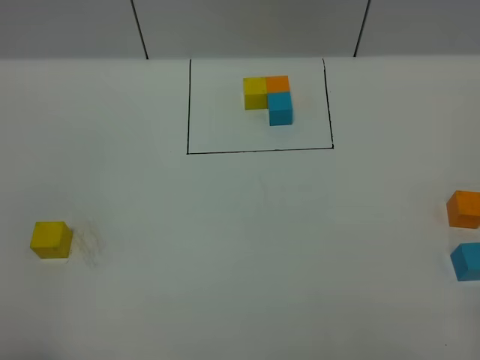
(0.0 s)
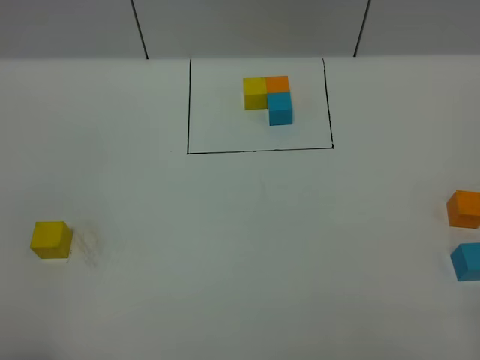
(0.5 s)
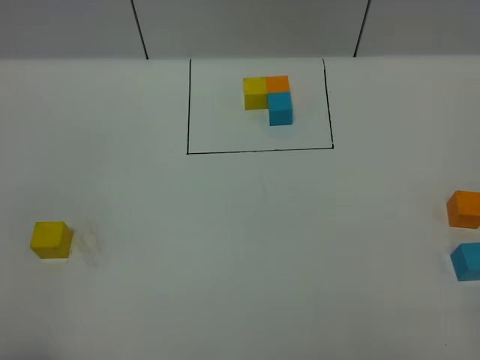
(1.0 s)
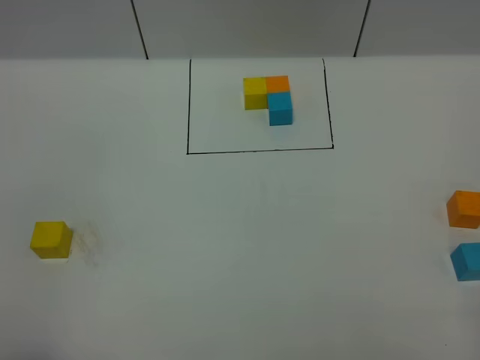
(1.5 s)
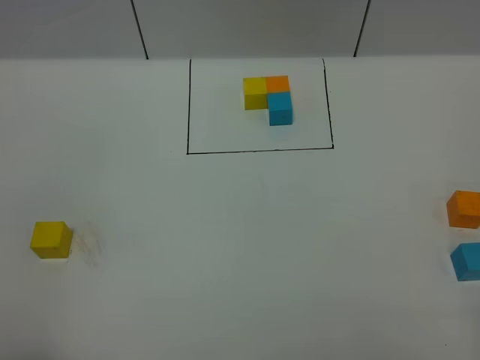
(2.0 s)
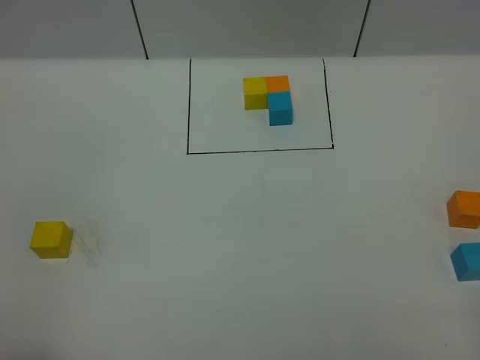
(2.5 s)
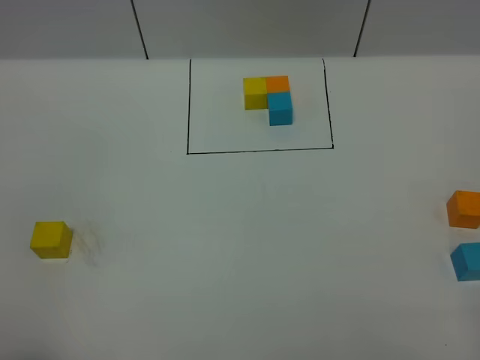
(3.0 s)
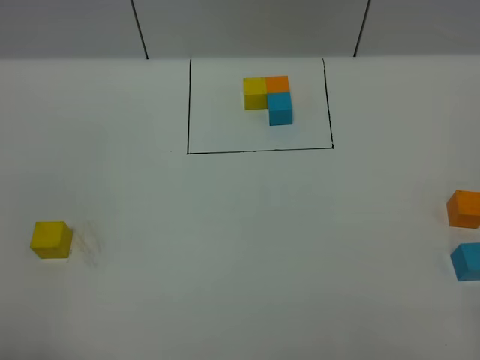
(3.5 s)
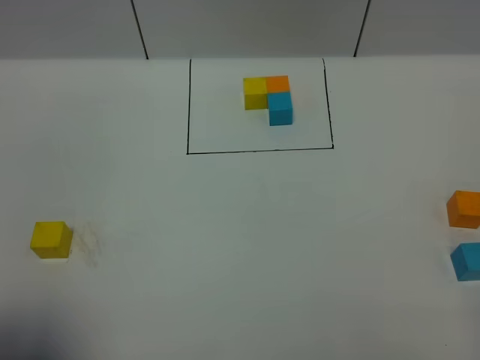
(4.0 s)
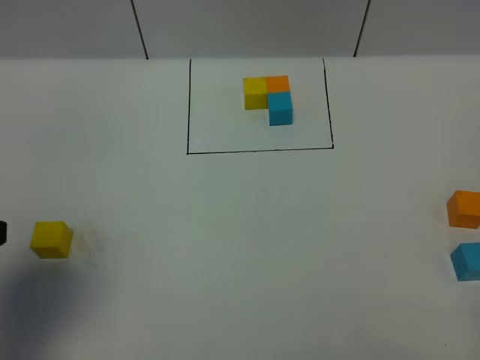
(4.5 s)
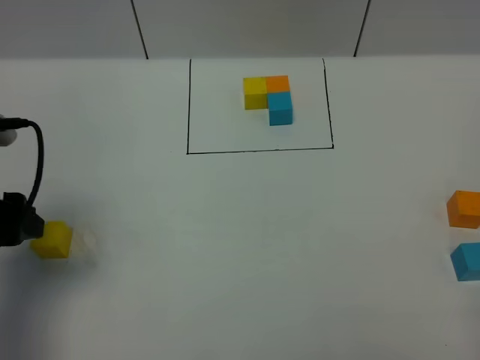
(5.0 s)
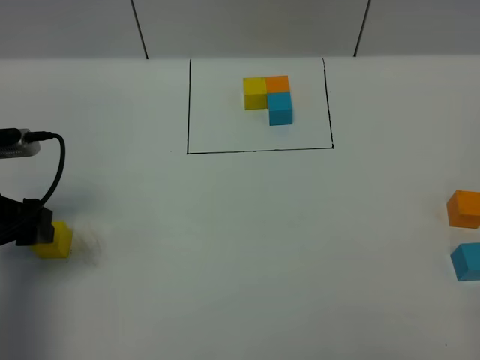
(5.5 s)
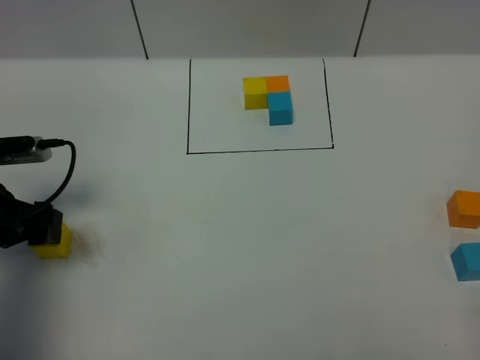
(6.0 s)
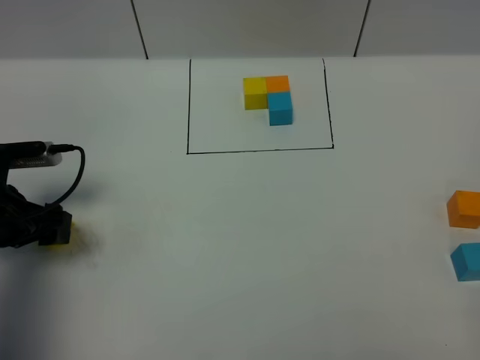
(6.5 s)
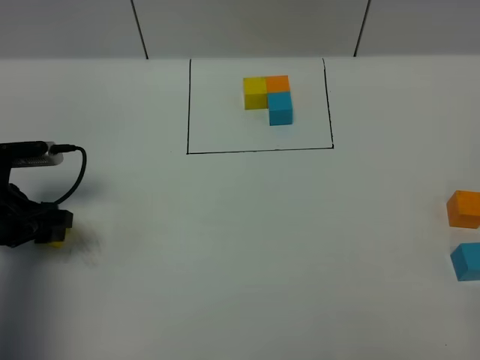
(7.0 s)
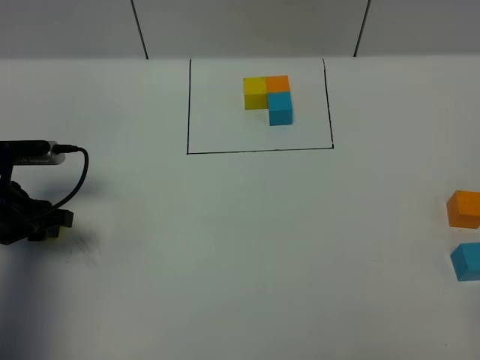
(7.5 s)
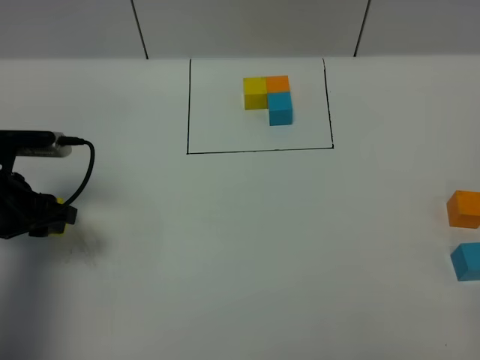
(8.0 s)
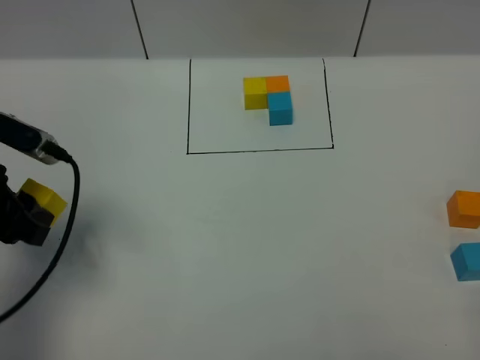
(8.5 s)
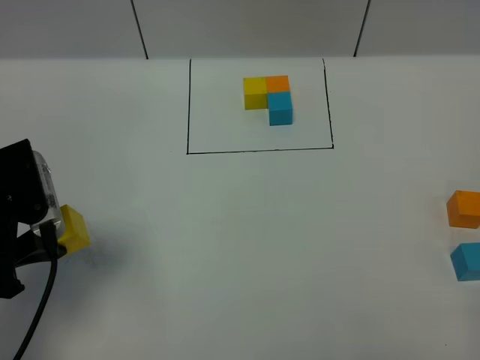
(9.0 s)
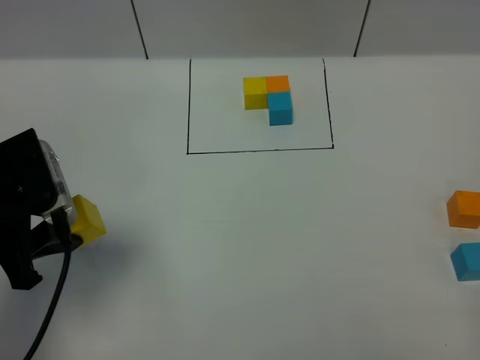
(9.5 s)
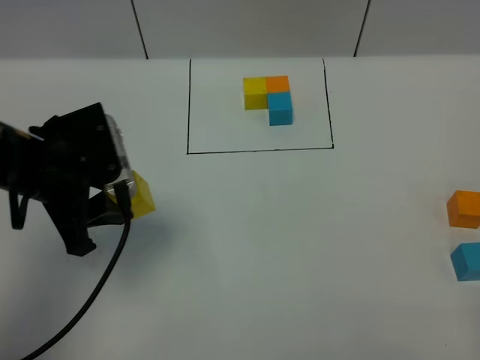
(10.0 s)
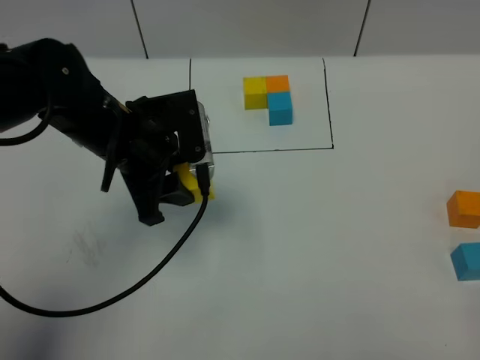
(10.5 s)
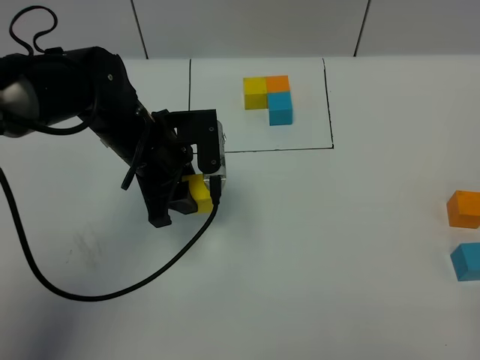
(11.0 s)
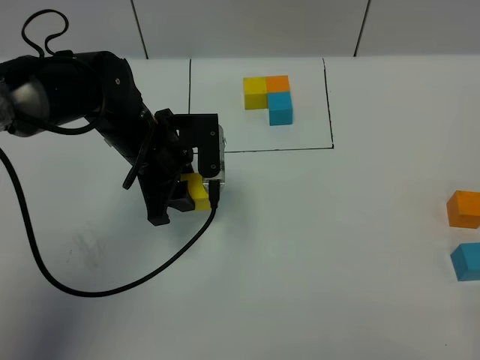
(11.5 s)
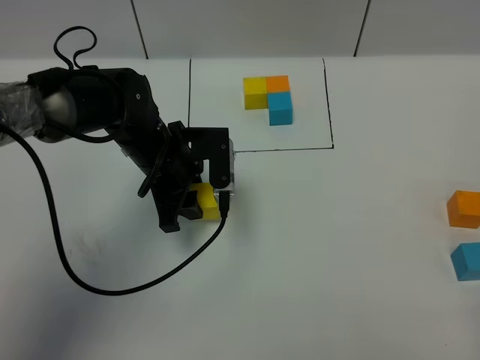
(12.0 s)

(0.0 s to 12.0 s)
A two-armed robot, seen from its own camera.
Task of the whole recording: According to the building block template in front, assemble the scattered blocks together.
0.0 s - 2.0 s: The two grippers keep their place.
2.0 s - 4.0 s: The left gripper travels forward by roughly 5 cm, and opens its fingers.
4.0 s - 6.0 s: The left gripper is displaced forward and downward by some 25 cm.
6.0 s - 8.0 s: The left gripper closes its fingers.
8.0 s - 10.0 s: The left gripper heads to the right and upward, covering roughly 10 cm.
10.0 s - 12.0 s: The left gripper shifts roughly 15 cm to the right, downward and forward.

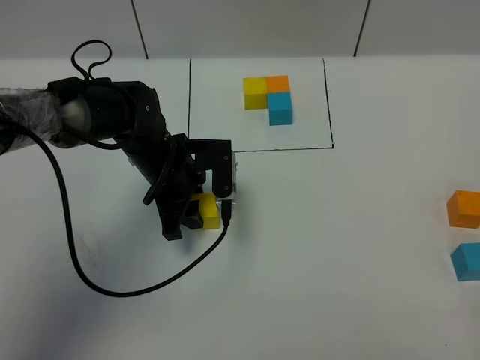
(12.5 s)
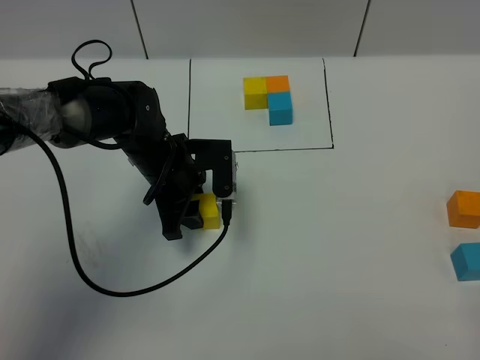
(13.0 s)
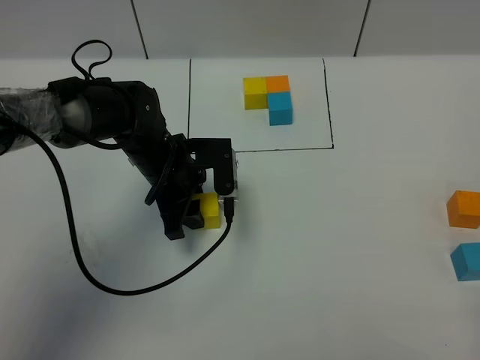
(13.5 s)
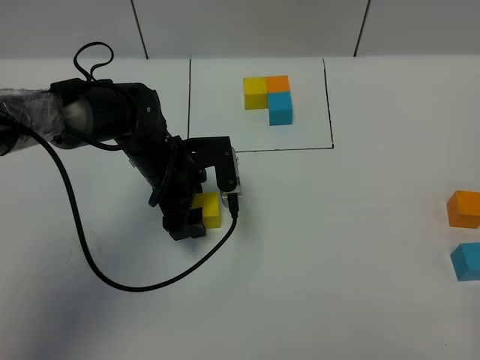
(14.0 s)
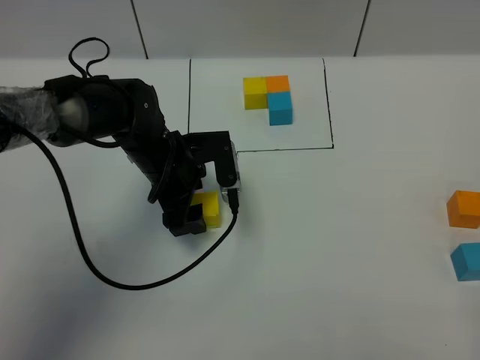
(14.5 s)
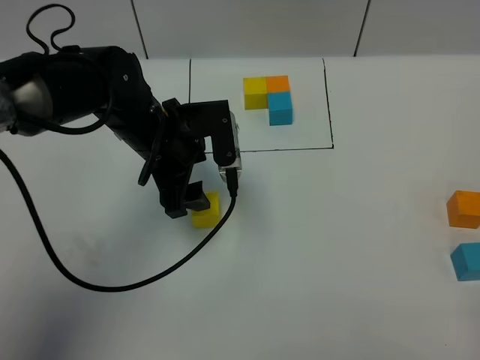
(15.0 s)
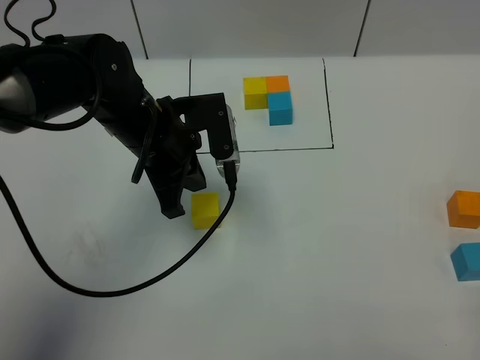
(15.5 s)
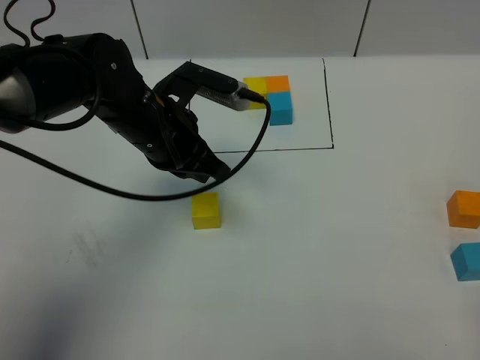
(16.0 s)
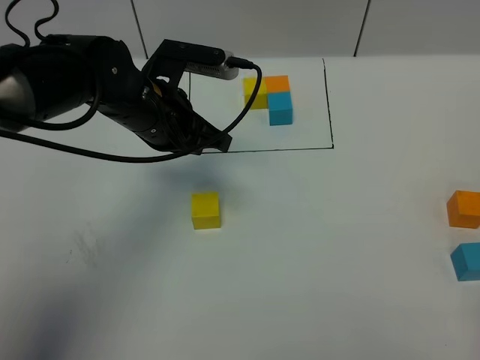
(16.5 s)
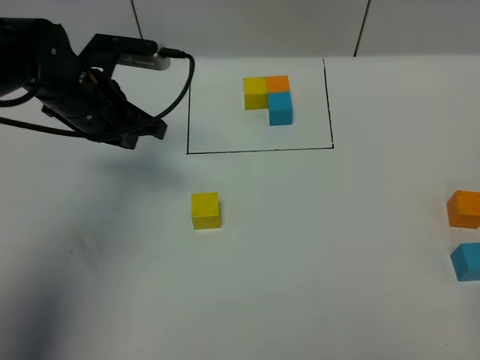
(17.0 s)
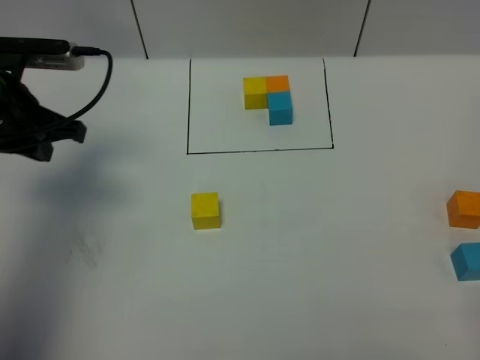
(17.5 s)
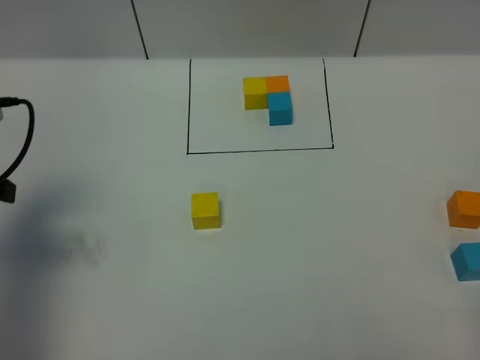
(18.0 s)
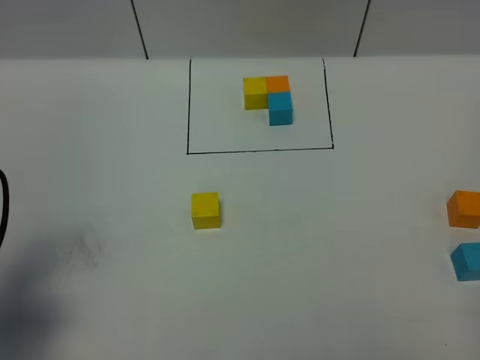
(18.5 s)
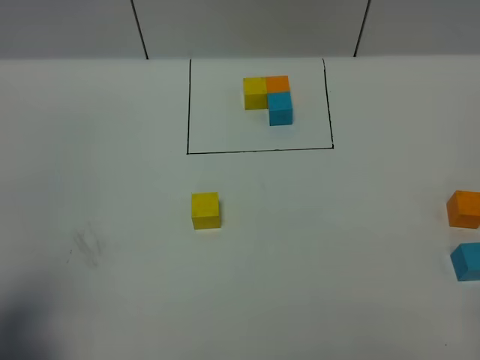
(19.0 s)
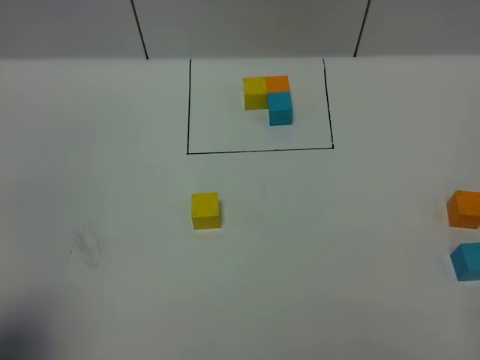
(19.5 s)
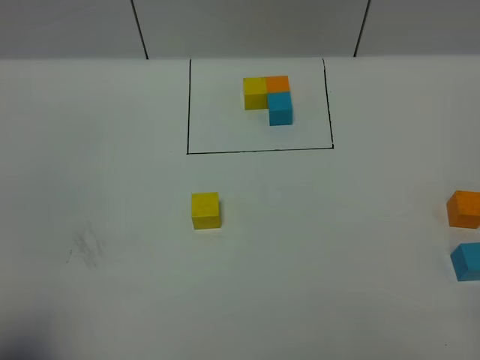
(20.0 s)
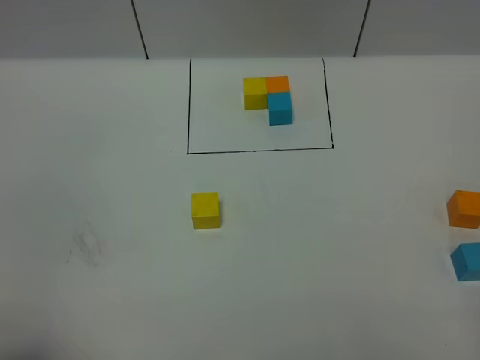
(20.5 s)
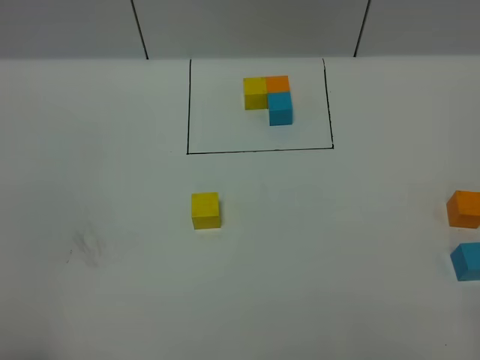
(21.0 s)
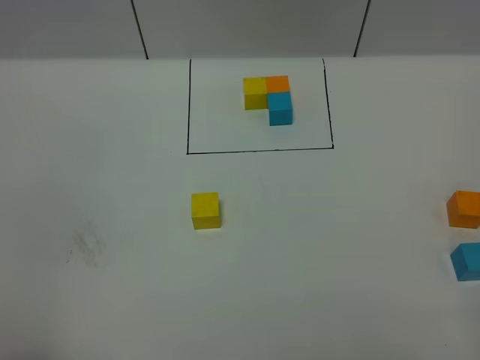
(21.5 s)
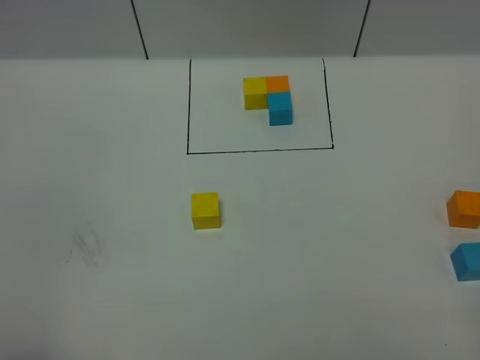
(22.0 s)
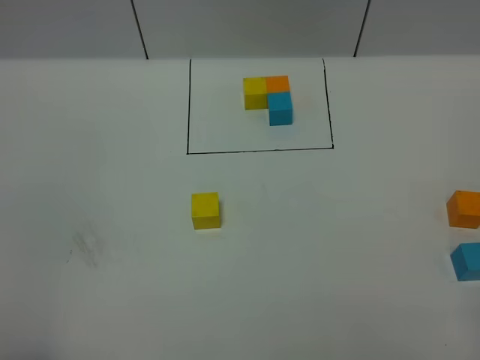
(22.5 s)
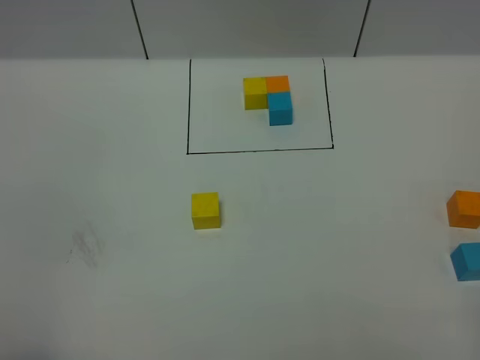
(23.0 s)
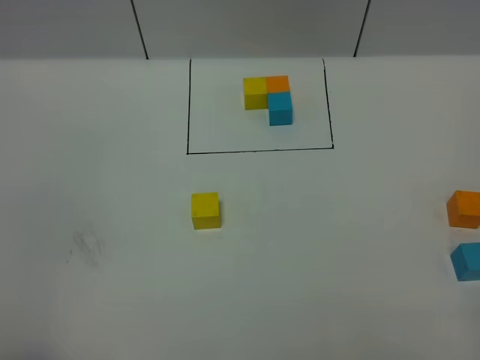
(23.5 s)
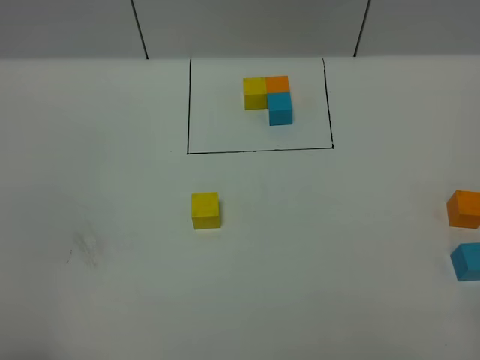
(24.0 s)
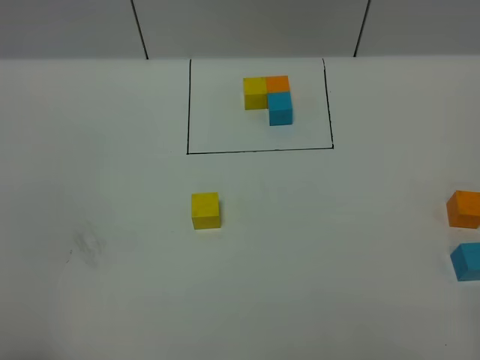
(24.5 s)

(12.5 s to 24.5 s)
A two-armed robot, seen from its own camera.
Task of the whole recording: According to the building block template in front, assemble the scattered blocks together.
12.5 s - 14.5 s: The left gripper opens.
14.5 s - 16.5 s: The left gripper goes some 10 cm upward, and closes its fingers.
16.5 s - 18.5 s: The left gripper shifts approximately 30 cm backward and to the left.
18.5 s - 20.5 s: The left gripper travels backward by roughly 15 cm.
22.5 s - 24.5 s: The two grippers keep their place.

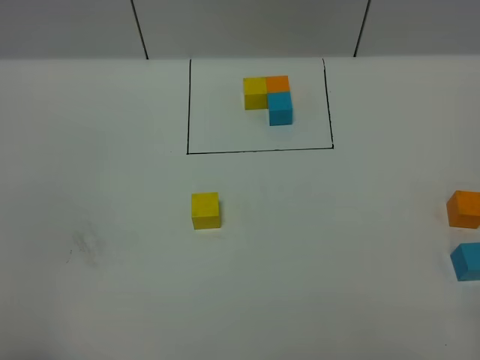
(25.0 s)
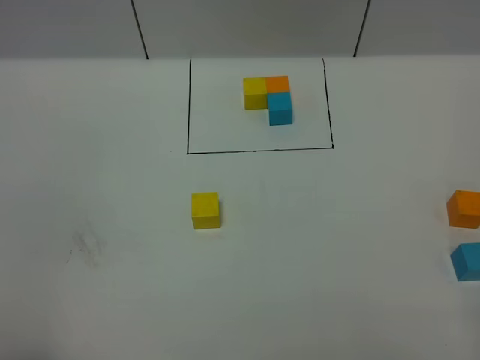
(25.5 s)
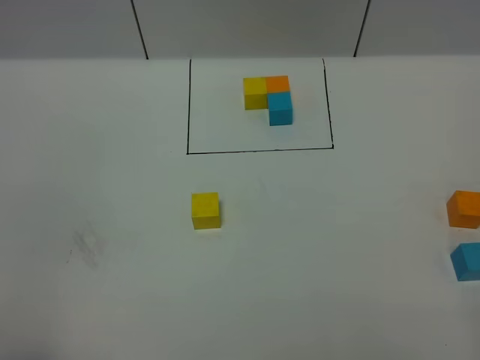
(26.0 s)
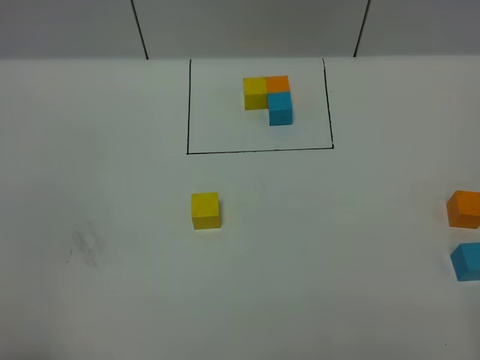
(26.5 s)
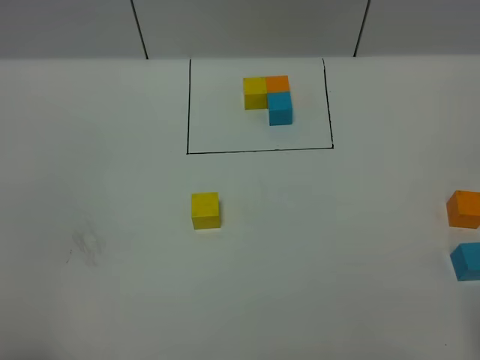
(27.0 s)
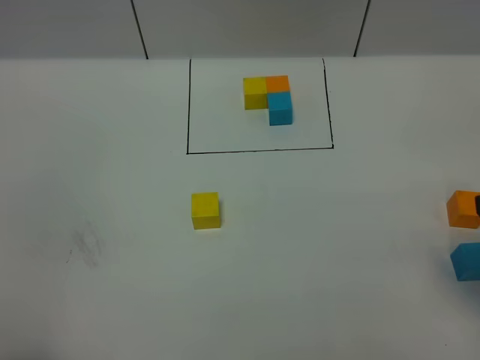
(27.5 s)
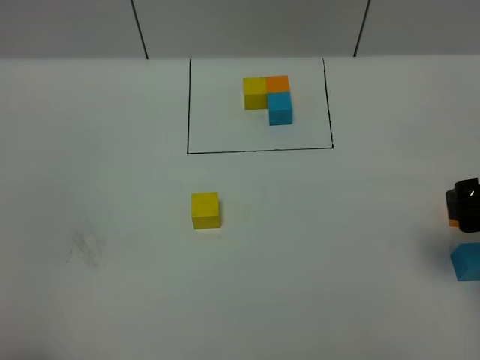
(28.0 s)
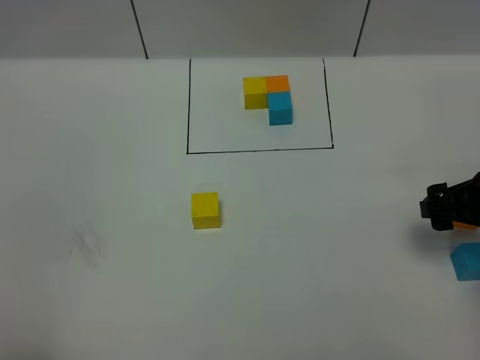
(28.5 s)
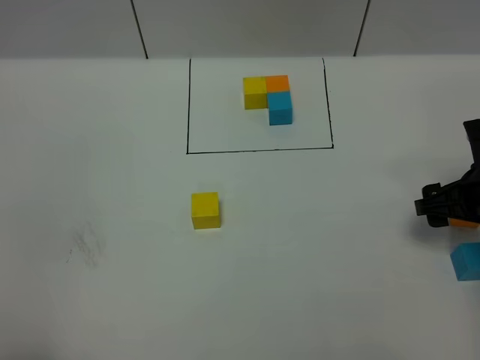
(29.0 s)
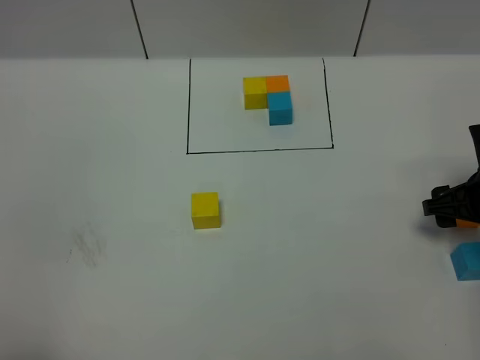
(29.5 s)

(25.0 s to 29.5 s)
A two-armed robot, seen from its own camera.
Task of the whole recording: According to the building block template in front, assemble the scattered blocks together.
27.0 s - 29.5 s: The right gripper shifts approximately 30 cm forward and downward.
